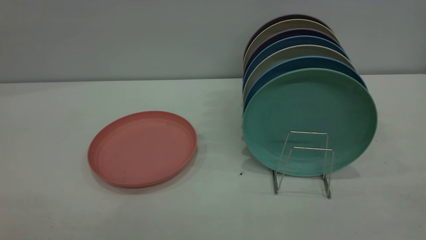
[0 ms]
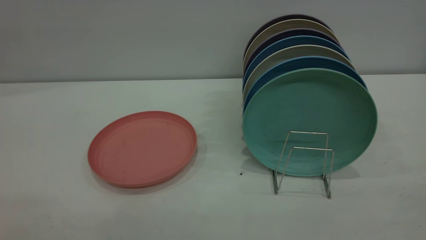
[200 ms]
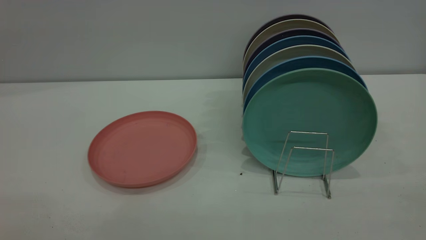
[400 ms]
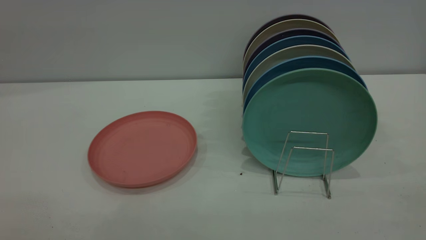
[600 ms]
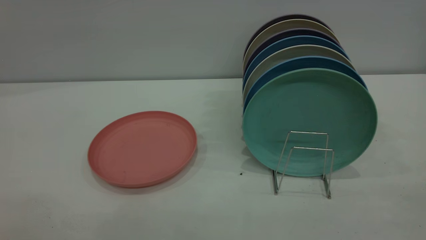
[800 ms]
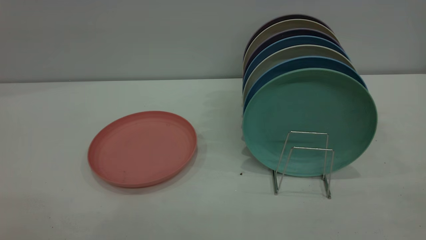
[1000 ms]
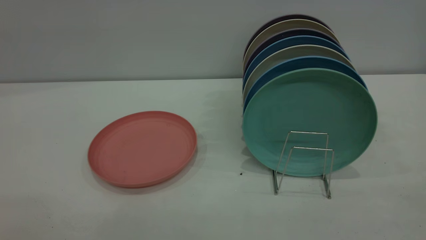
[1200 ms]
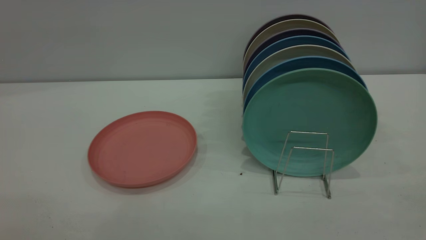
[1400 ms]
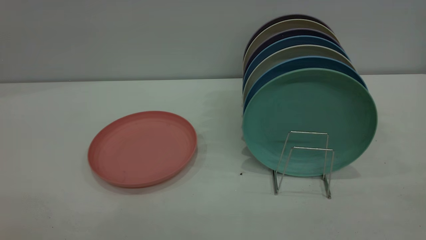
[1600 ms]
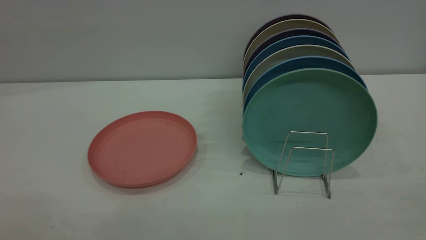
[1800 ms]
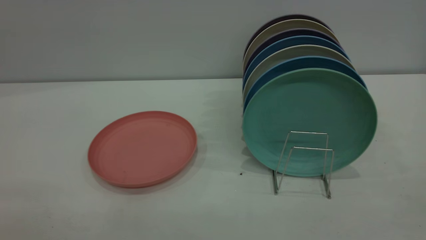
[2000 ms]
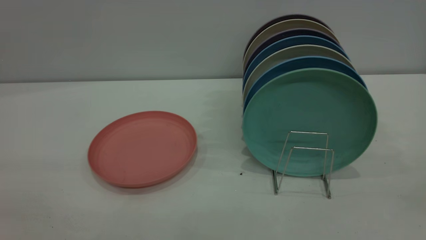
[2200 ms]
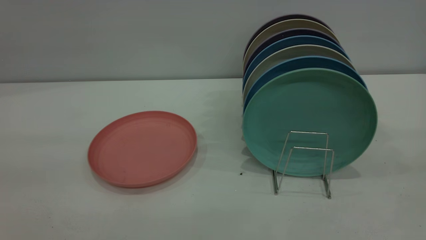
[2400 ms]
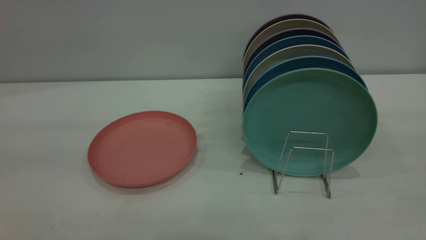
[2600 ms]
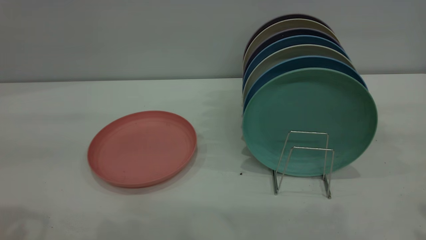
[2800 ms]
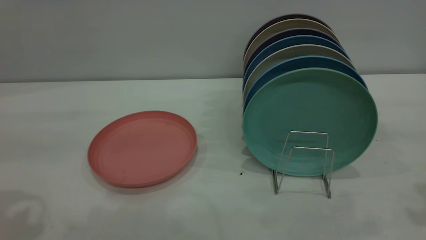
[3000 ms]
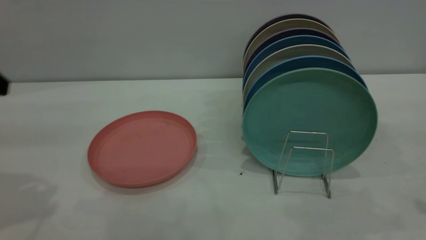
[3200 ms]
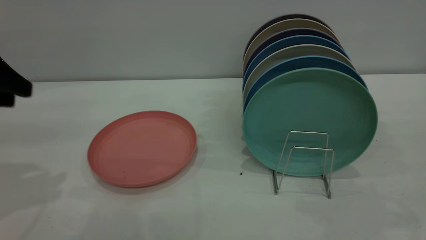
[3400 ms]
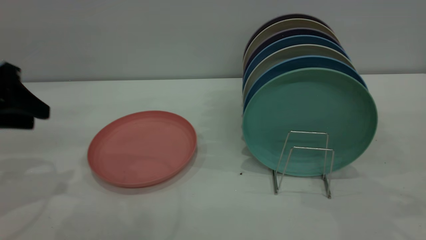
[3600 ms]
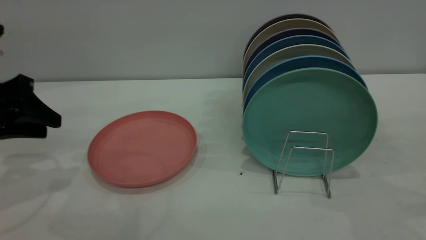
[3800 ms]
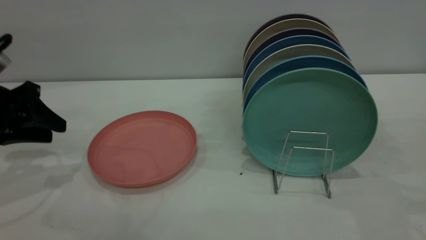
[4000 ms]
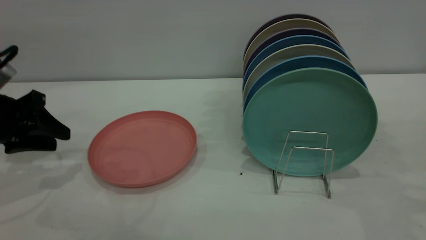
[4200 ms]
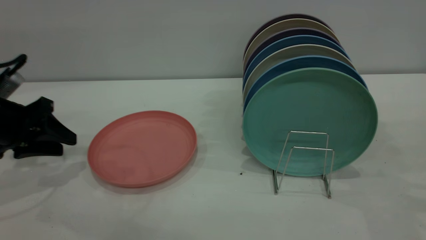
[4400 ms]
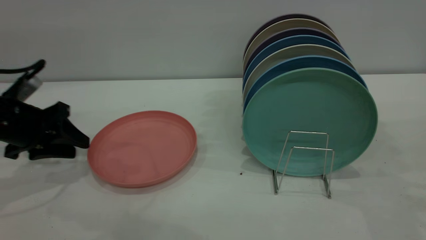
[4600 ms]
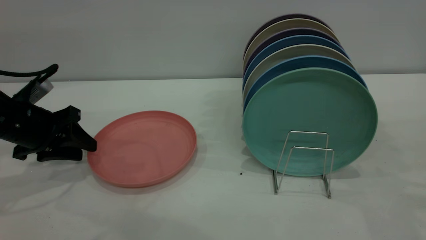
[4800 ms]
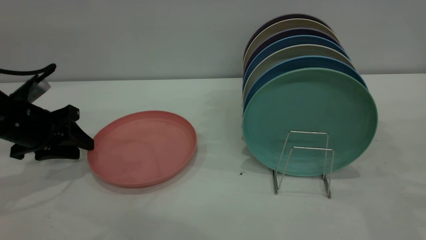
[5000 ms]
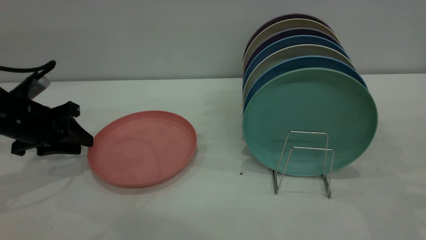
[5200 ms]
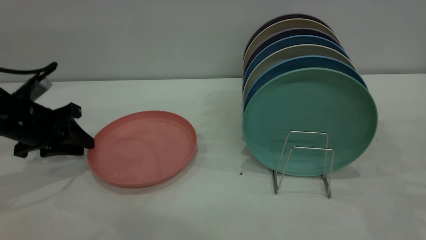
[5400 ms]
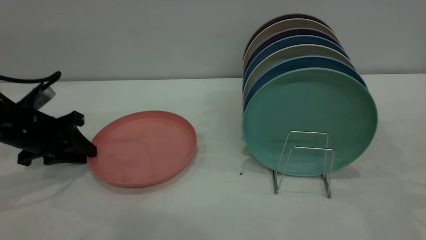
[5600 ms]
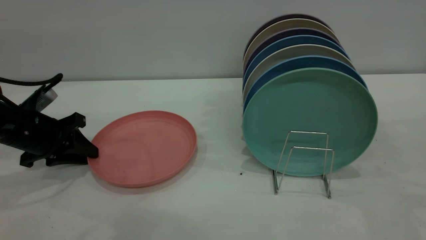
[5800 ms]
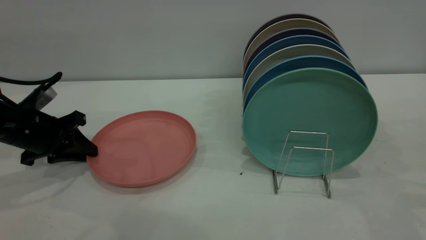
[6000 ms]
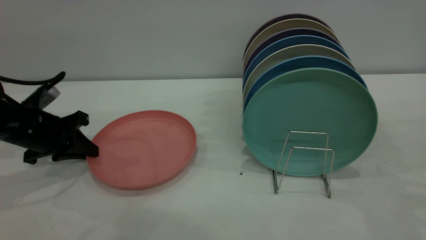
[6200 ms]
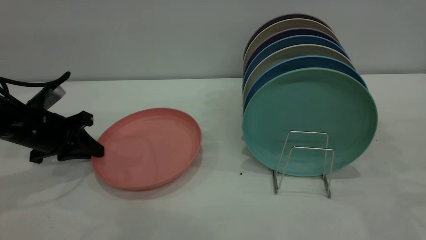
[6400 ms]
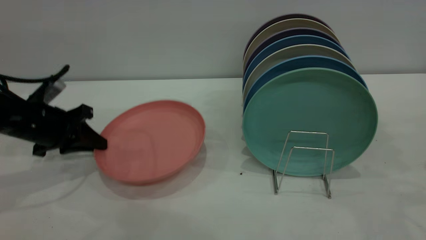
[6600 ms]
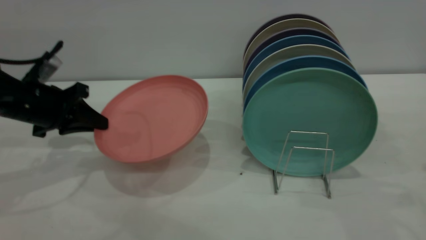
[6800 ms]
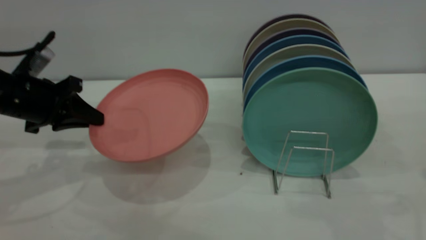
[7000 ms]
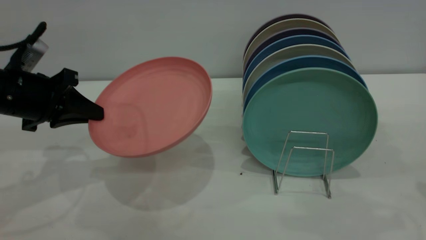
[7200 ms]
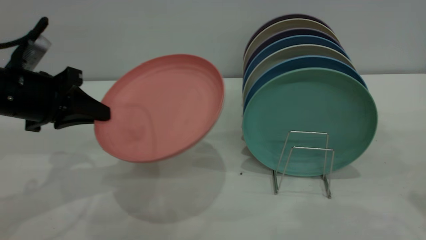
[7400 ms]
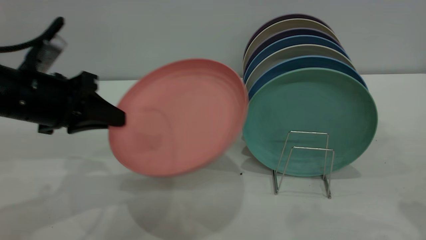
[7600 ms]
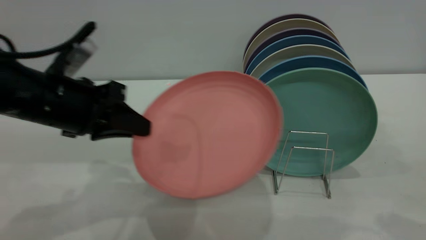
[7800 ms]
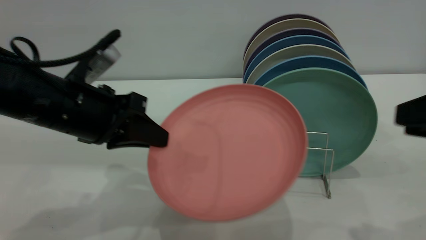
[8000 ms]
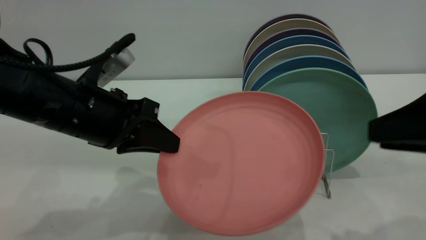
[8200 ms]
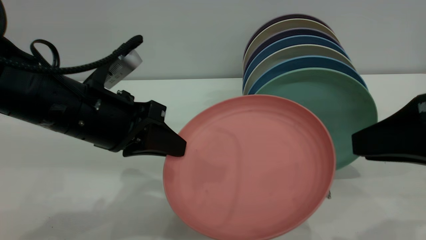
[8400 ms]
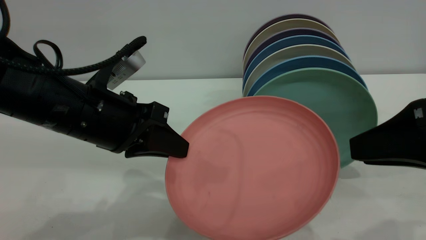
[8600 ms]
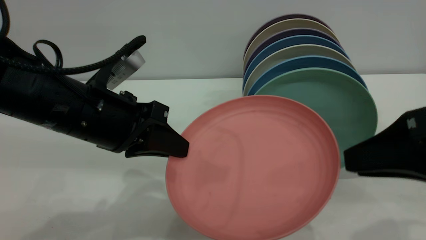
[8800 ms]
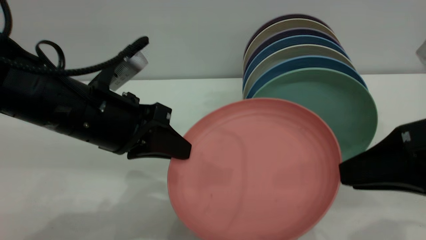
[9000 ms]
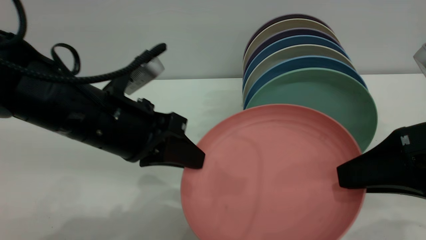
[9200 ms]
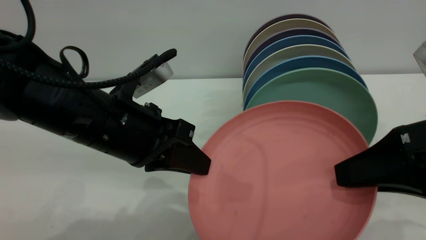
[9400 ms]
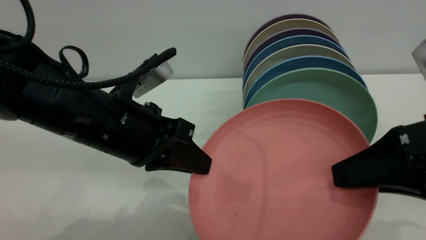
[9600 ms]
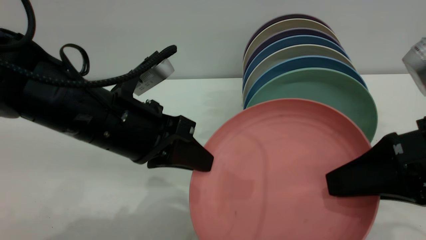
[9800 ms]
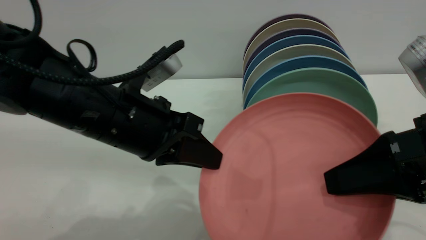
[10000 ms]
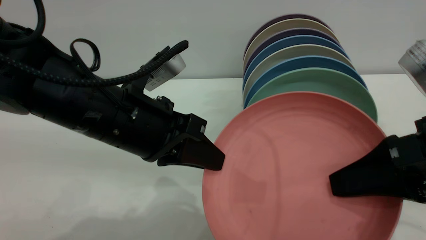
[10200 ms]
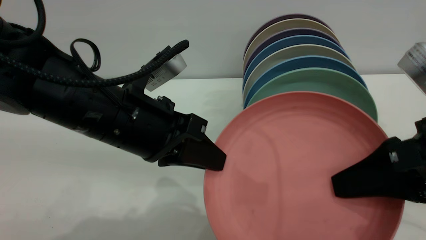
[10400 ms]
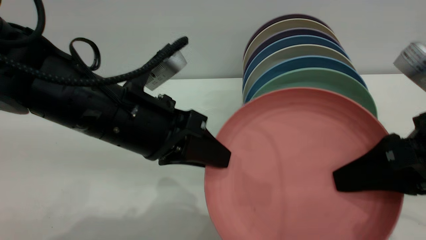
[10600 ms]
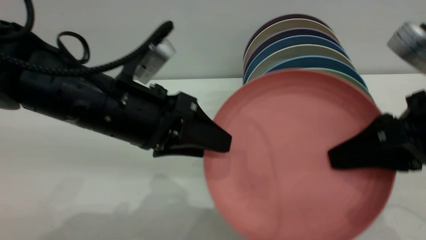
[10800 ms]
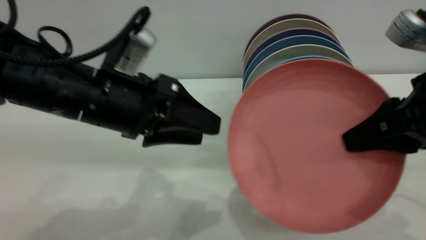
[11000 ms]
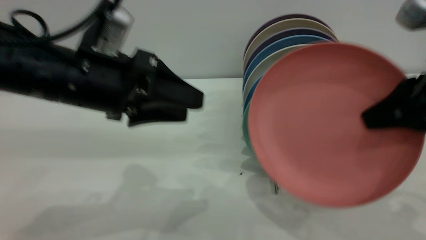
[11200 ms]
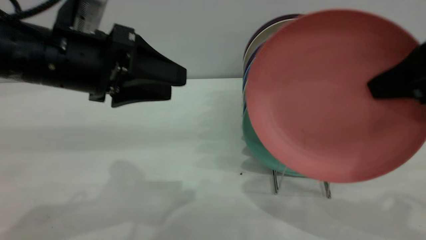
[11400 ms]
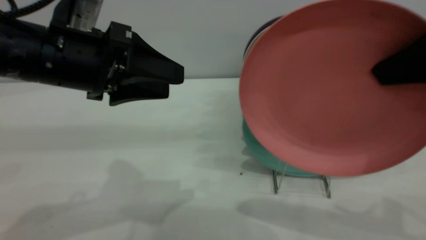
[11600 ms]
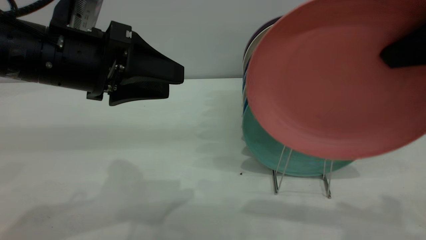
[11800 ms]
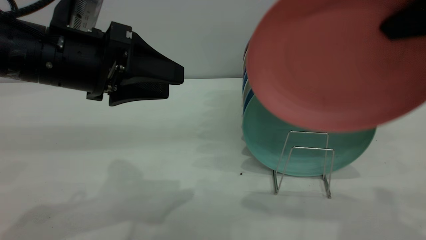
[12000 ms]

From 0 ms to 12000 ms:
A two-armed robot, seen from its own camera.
Task of the whole recording: put the plate on the plate rack.
Step, from 0 ms to 7000 ms: Pick up the plate with the left gripper.
Step, from 7400 ms to 11000 ms: Pass the plate from the left gripper to the right gripper.
From 0 ms to 1600 ms: The two grippers keep their place.
From 3000 ms to 4400 ms: The left gripper is displaced downward and forward by roughly 20 cm.
From 4400 ms to 6000 ms: The left gripper closes.
From 6000 ms to 7600 ms: The right gripper travels backward and to the left by some 10 cm, while the left gripper heads upward, to the right and backward, covering about 15 cm.
From 7600 ms to 9000 ms: The right gripper moves to the left, roughly 10 cm, while the left gripper goes roughly 10 cm to the right.
From 10400 ms to 12000 ms: The right gripper travels upward by approximately 15 cm. Meanwhile the left gripper heads to the left, covering about 5 cm, and opens its fingers.

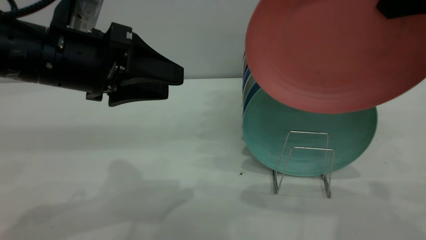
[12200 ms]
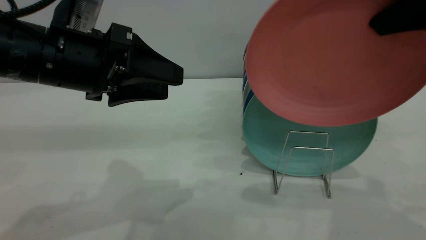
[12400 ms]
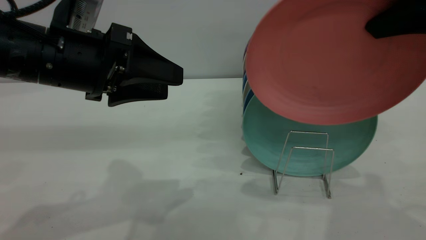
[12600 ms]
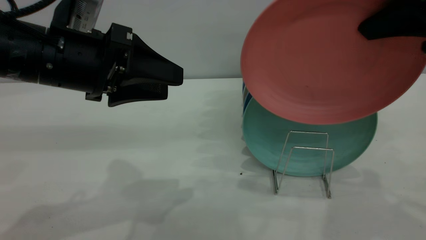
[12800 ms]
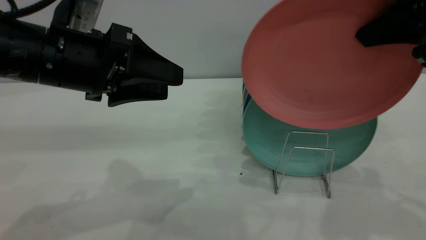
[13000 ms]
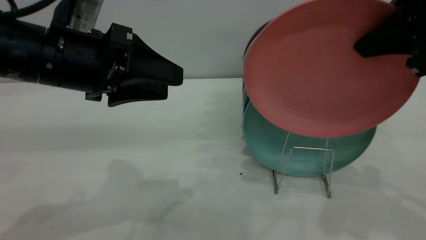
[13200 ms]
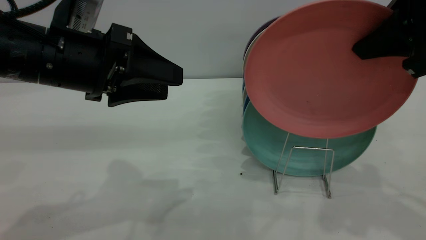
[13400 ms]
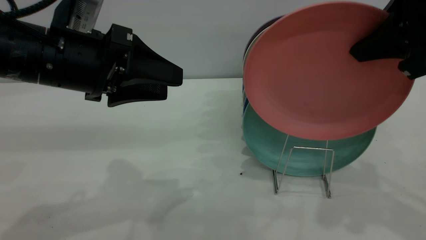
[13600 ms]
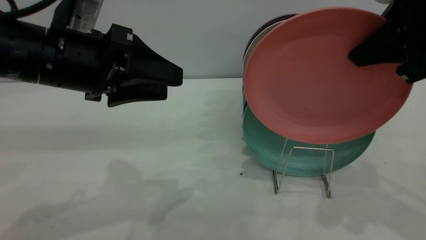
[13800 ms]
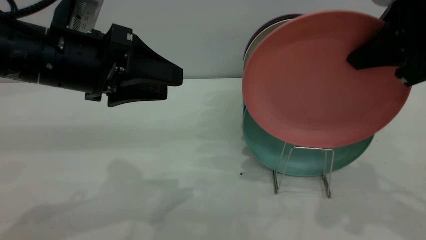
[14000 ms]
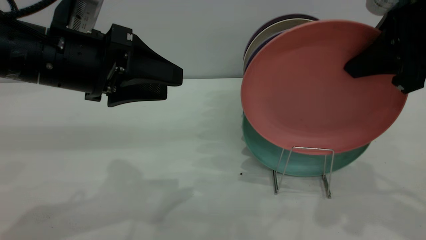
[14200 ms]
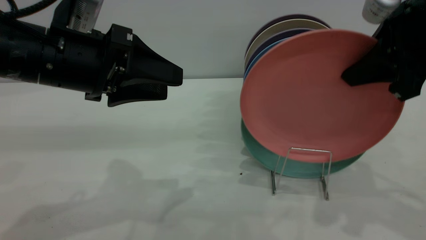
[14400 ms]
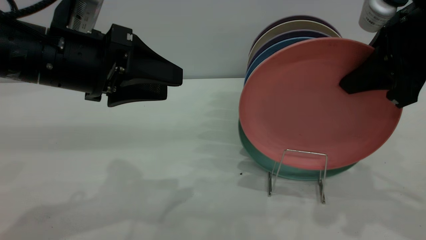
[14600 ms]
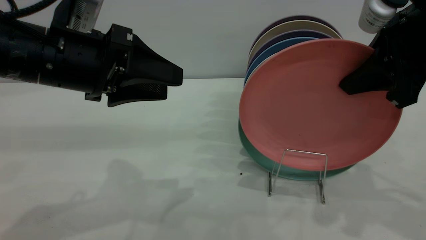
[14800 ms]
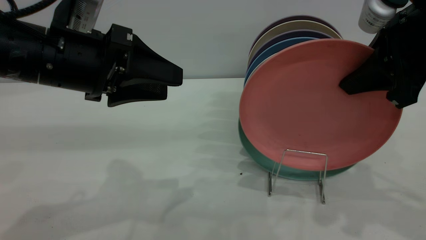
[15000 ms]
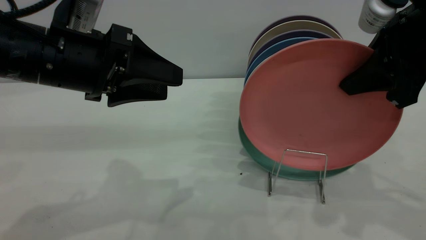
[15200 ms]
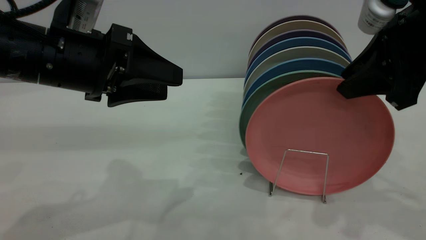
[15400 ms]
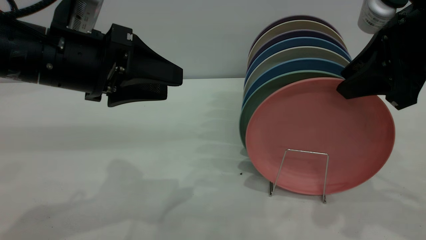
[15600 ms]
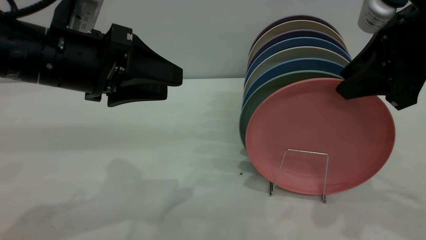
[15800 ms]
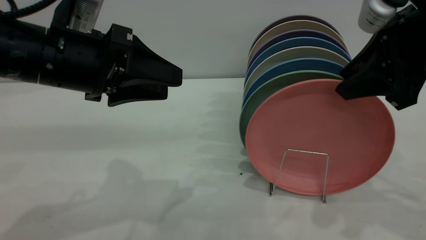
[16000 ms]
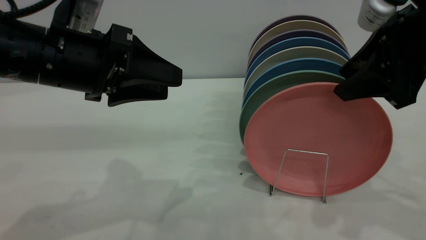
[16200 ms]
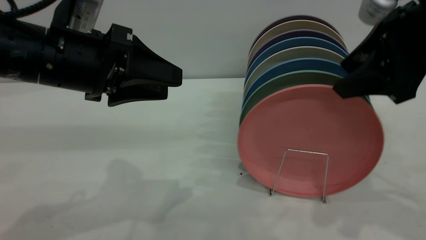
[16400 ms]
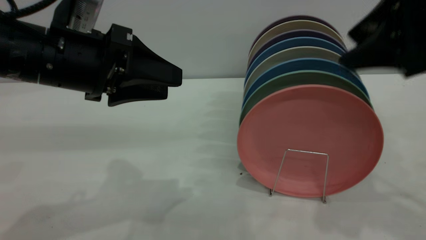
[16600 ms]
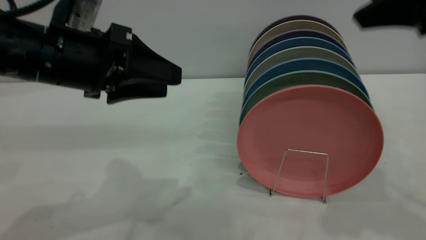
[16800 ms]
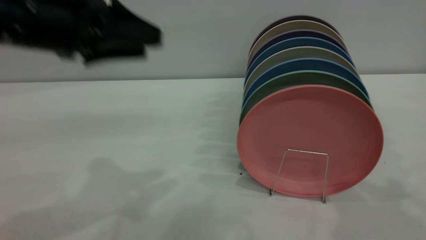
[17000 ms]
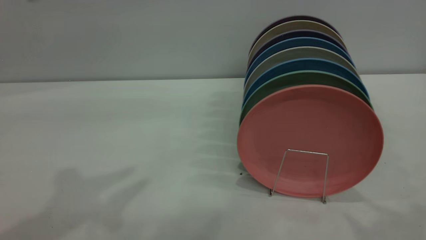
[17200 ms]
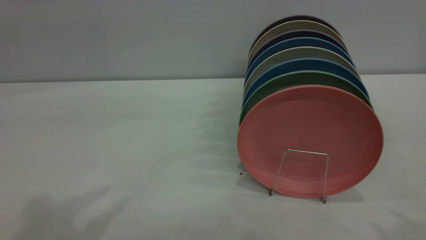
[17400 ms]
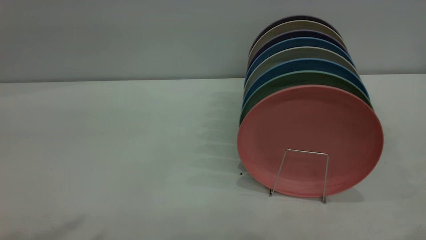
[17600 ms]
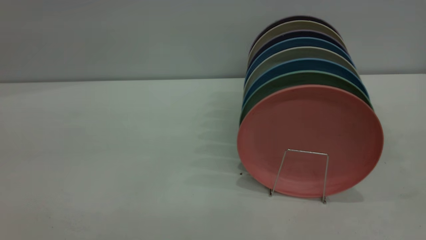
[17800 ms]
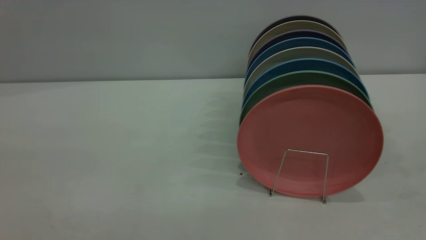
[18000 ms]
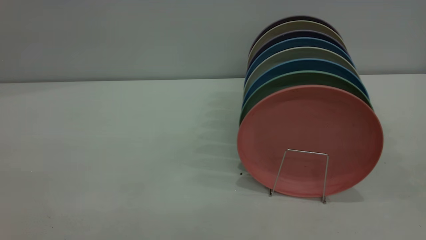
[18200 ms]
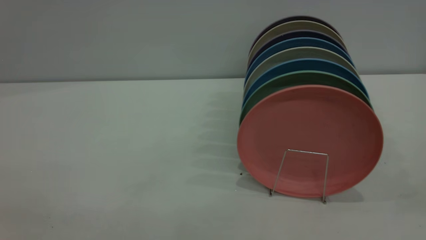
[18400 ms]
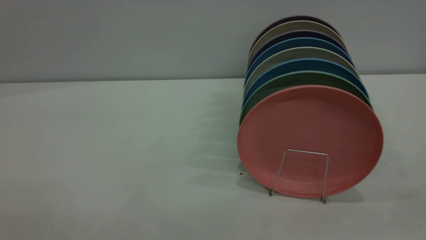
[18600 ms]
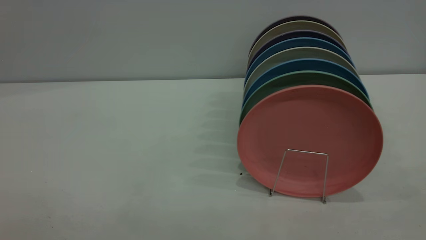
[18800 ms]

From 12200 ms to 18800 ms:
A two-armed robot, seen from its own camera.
Task of the whole recording: put the plate on the plate rack.
Step, from 12200 ms to 16600 ms: Place the plate on the shelf.
From 12200 ms to 13800 ms: The right gripper heads downward, covering approximately 5 cm.
From 13800 ms to 15400 ms: The right gripper opens its fingers.
From 15400 ms to 17200 ms: The left gripper shifts roughly 15 cm upward. Meanwhile the right gripper heads upward and backward, covering approximately 15 cm, and opens its fingers.
